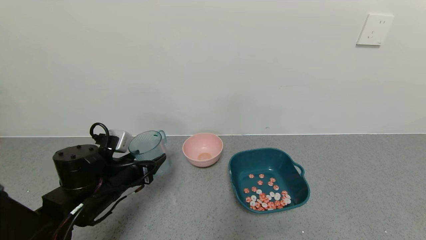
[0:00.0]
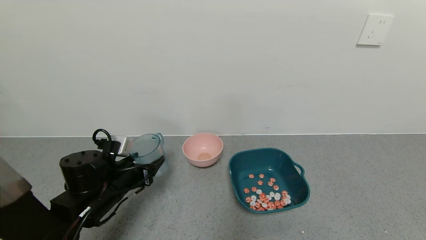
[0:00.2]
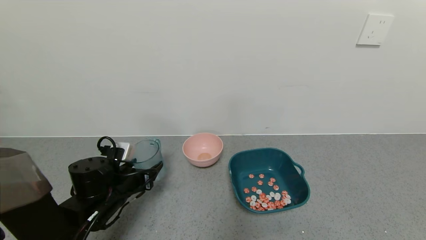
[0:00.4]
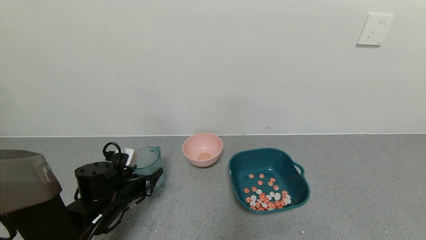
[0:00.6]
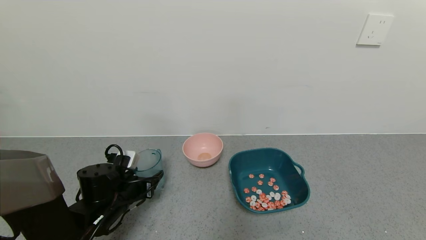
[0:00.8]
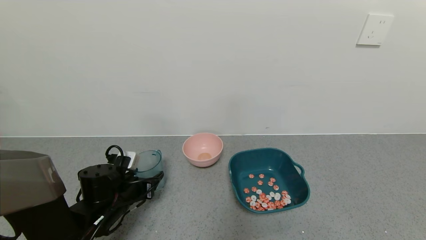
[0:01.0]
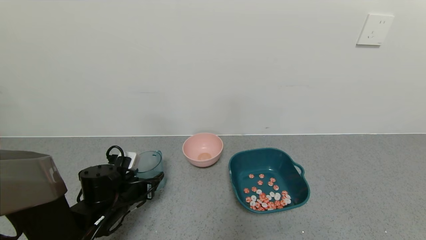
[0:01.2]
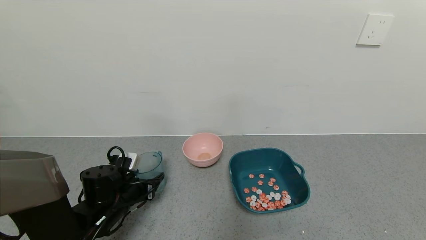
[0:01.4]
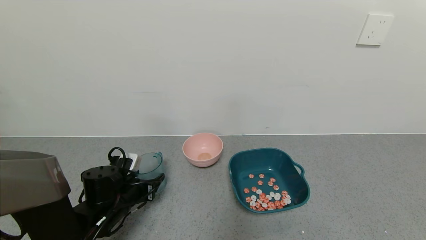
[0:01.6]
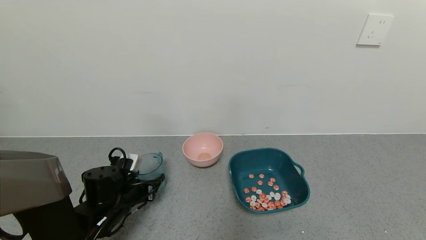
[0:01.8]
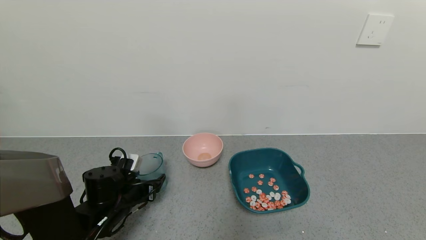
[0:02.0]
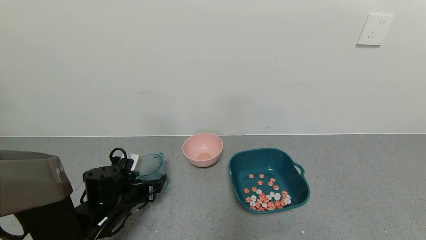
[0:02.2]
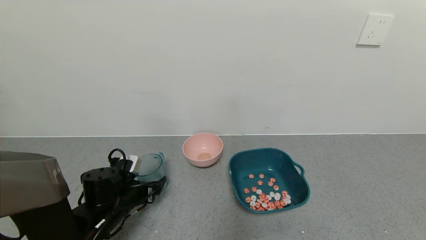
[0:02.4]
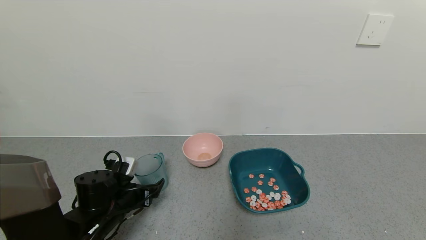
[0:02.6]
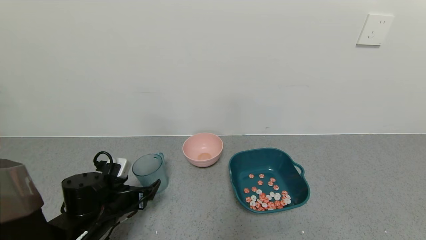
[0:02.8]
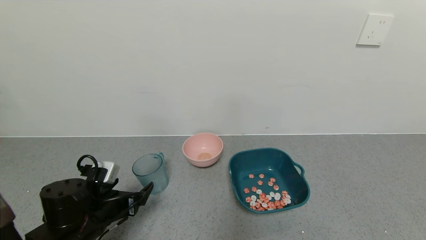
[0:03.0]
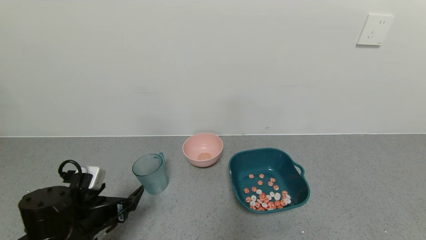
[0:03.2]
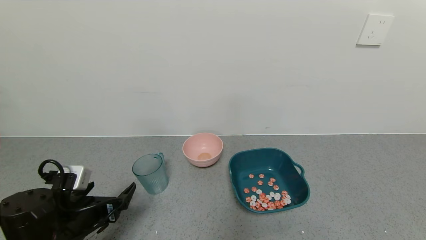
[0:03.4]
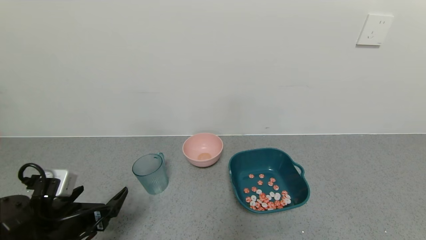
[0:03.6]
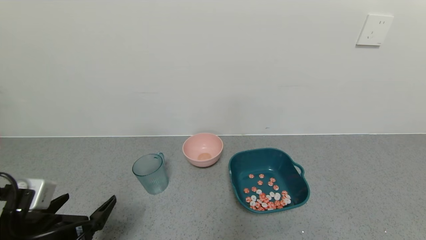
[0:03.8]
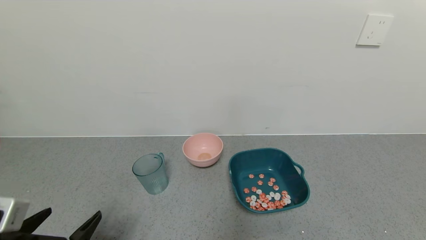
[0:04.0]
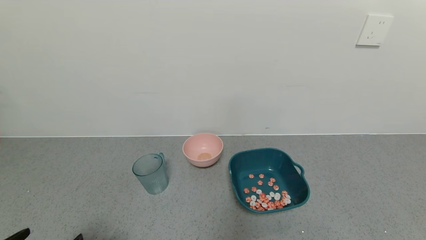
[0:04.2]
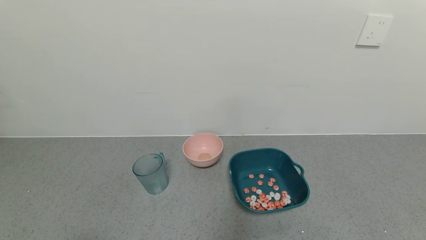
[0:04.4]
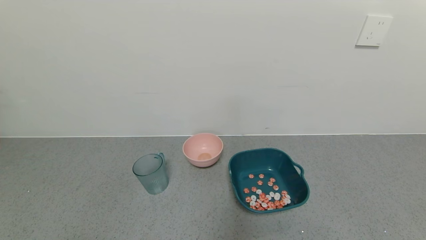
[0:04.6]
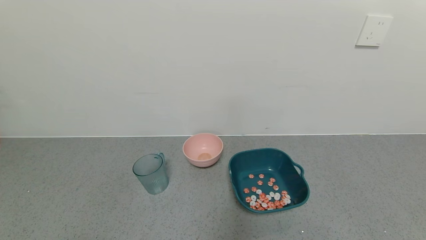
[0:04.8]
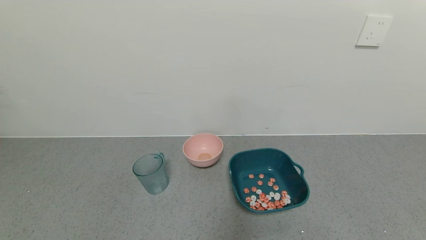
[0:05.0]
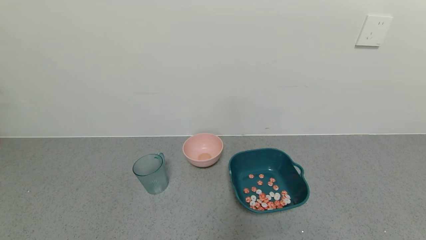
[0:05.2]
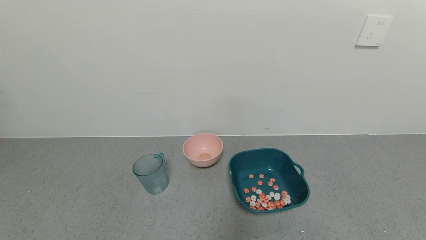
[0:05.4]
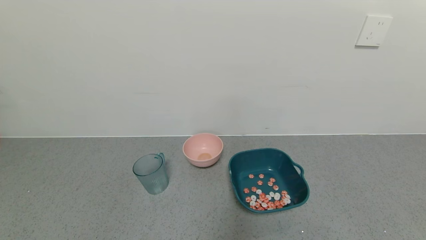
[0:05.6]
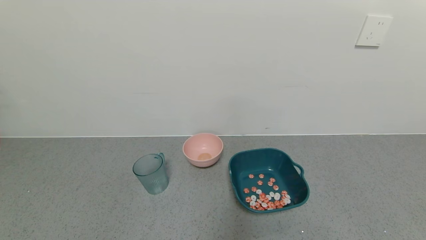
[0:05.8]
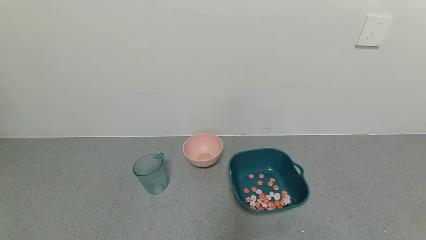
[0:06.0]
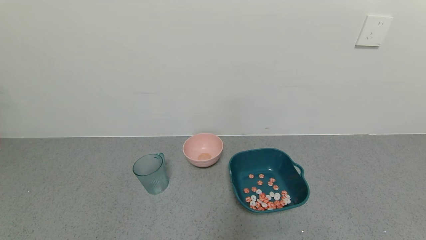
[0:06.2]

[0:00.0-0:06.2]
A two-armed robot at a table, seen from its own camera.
Task of the whole recording: use a gripper to pick up the cup and pour the solid into a bowl or tray.
Step, 0:00.0 to 0:02.8: Place the glass cup with the left gripper.
0:00.0 to 0:01.6: The left gripper travels downward by about 5 cm.
0:01.6 to 0:03.2: The left gripper is displaced backward by approximately 10 cm, and opens its fingers.
0:03.2 to 0:04.6: The left gripper shifts roughly 20 cm backward.
